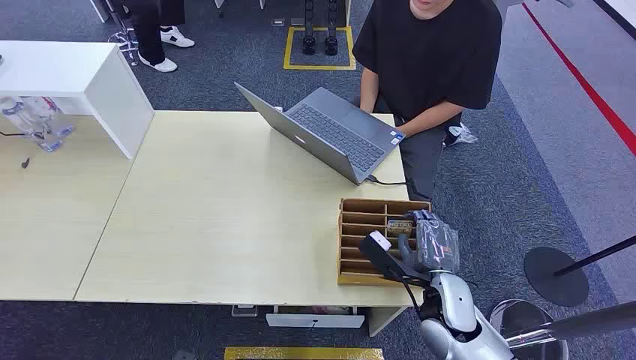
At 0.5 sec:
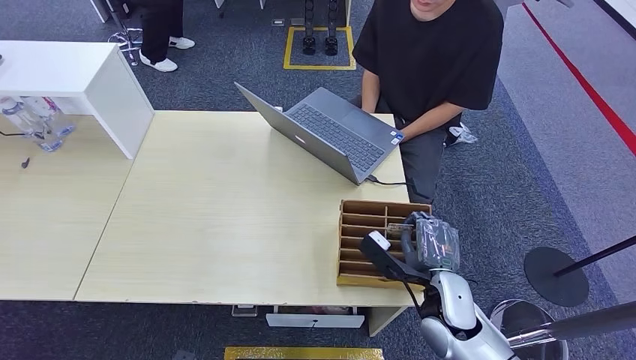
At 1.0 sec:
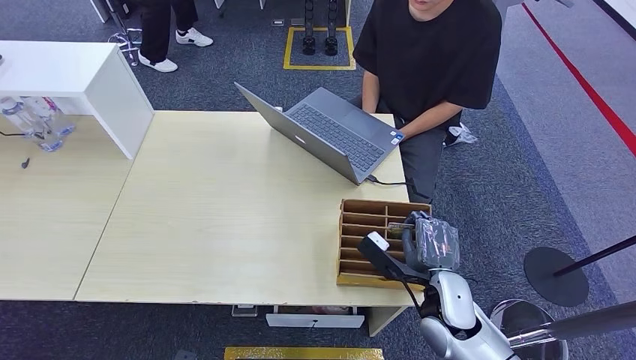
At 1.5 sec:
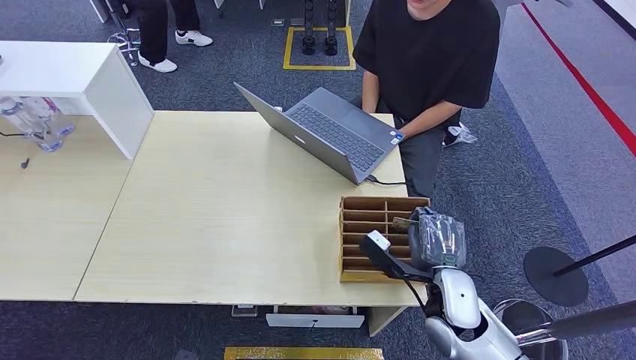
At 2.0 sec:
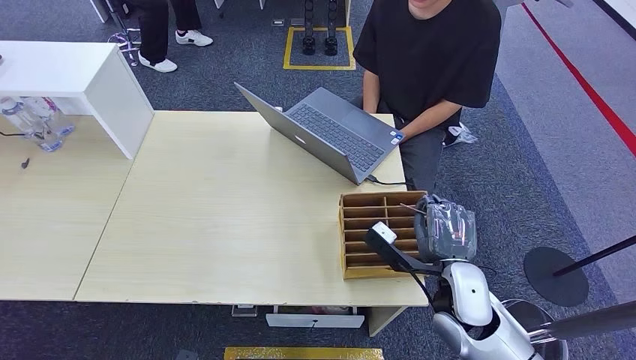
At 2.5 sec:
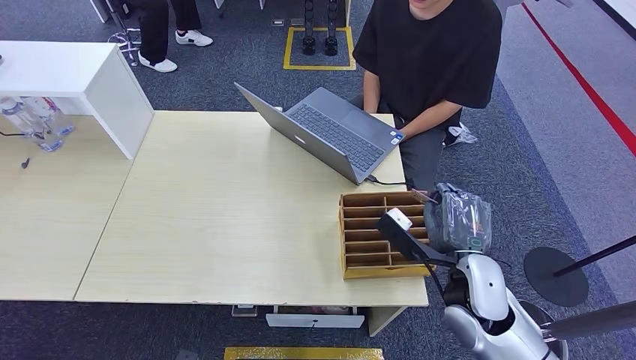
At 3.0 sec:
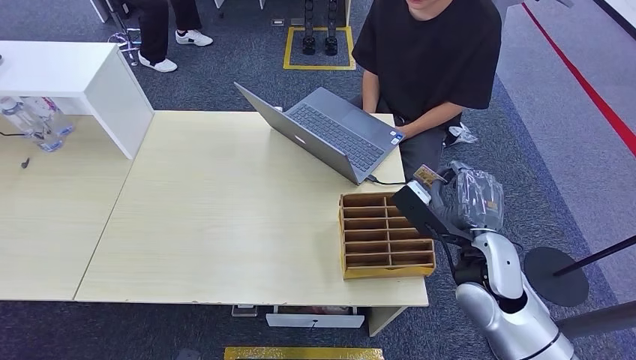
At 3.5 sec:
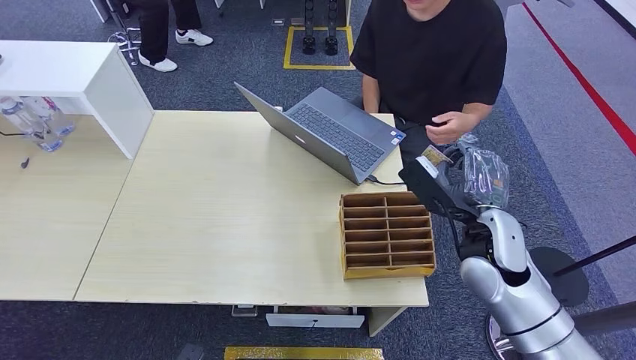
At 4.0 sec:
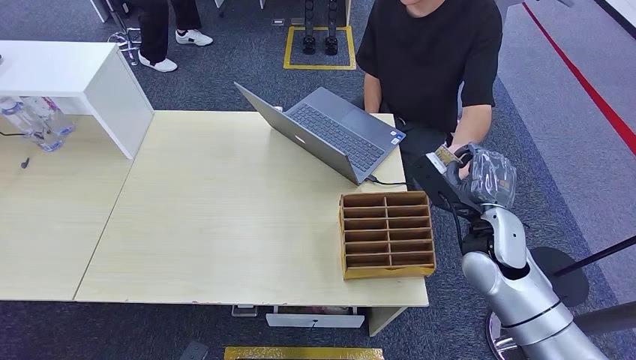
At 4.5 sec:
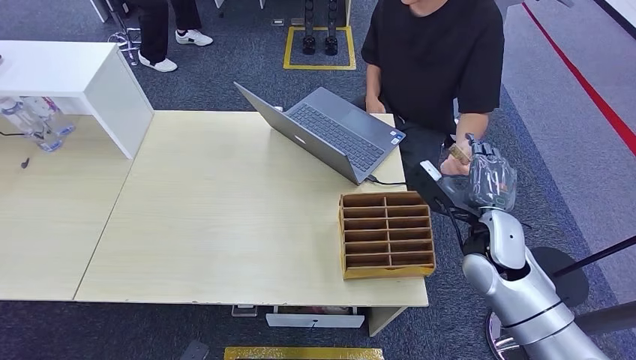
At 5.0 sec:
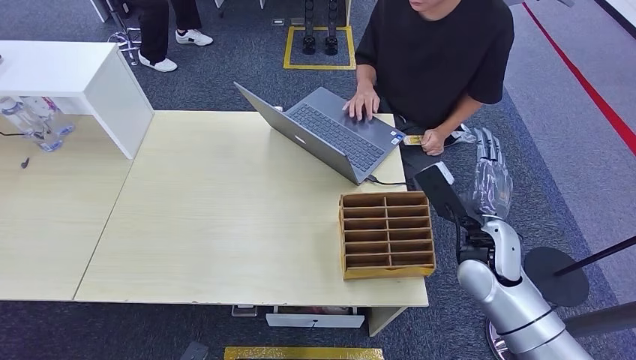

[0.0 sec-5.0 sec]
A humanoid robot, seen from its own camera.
Step, 0.0 sec to 3.0 sec: Pick up the room card from the card holder.
Step, 3.5 sec to 5.0 sec: Hand the room card to the target.
2.5 sec to 5.0 sec: The right hand heads forward, covering roughly 5 cm.
